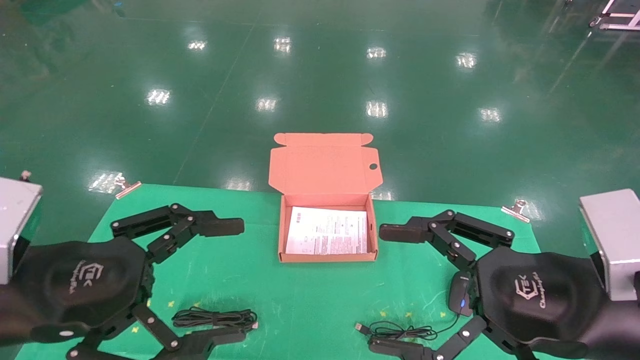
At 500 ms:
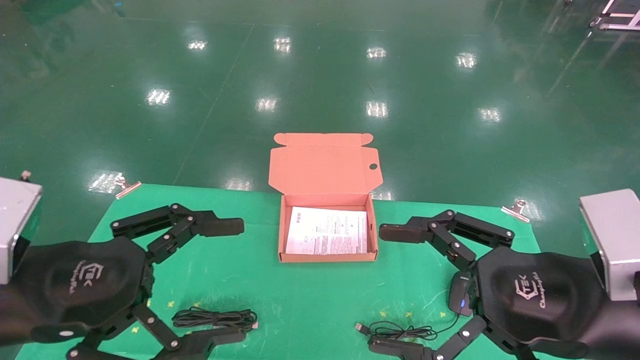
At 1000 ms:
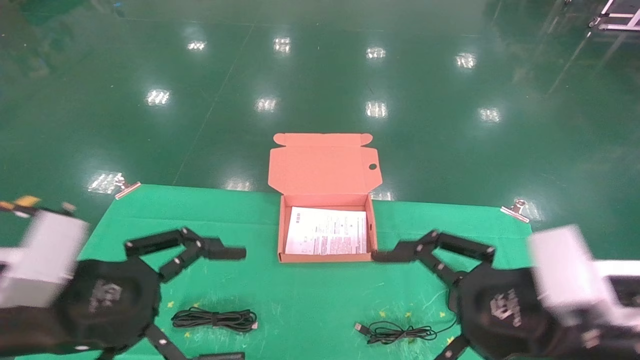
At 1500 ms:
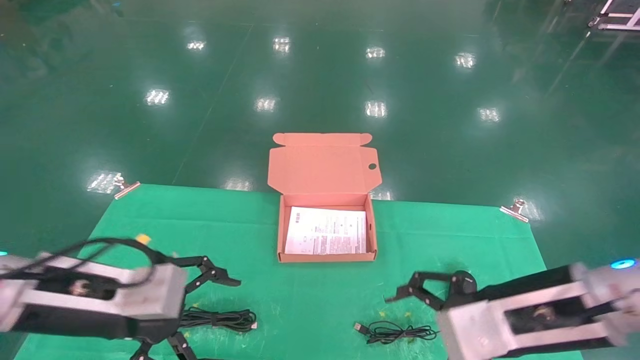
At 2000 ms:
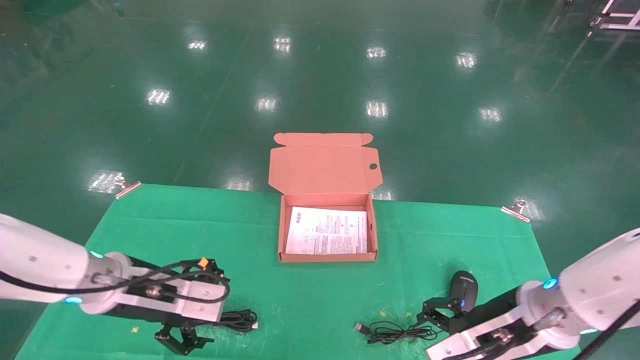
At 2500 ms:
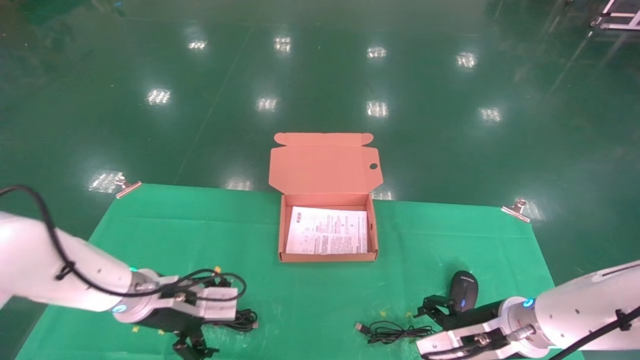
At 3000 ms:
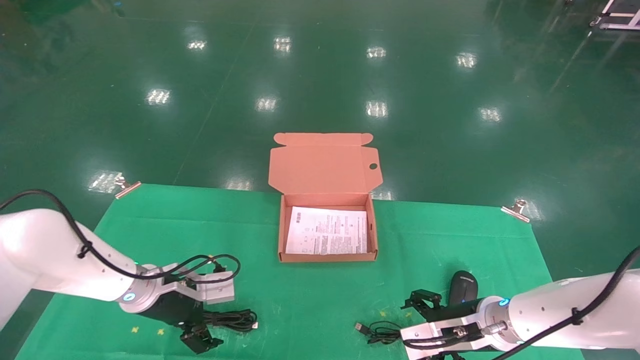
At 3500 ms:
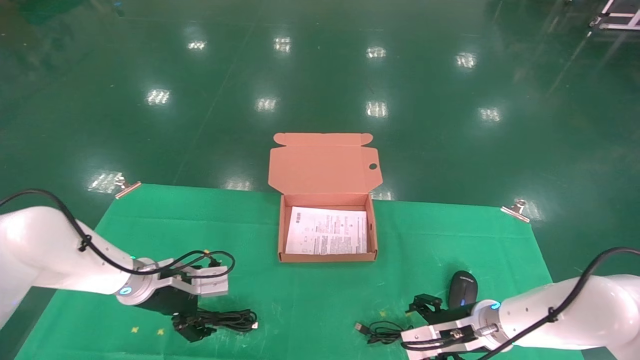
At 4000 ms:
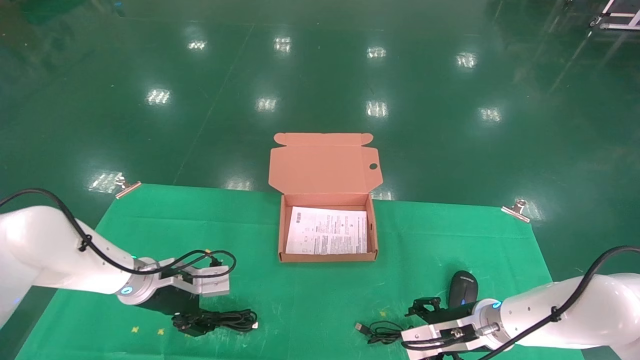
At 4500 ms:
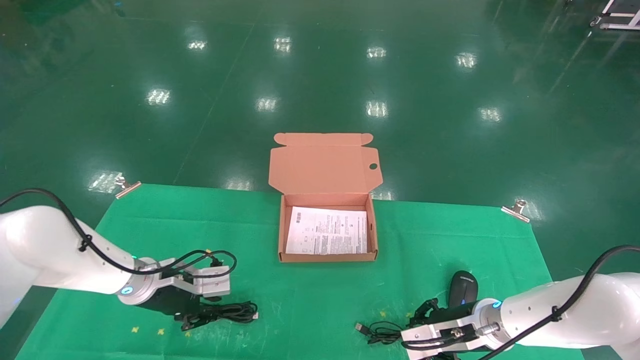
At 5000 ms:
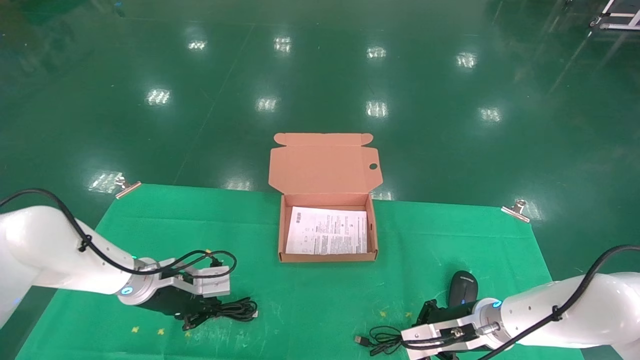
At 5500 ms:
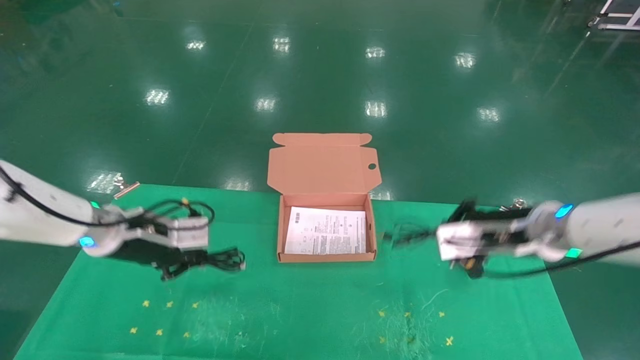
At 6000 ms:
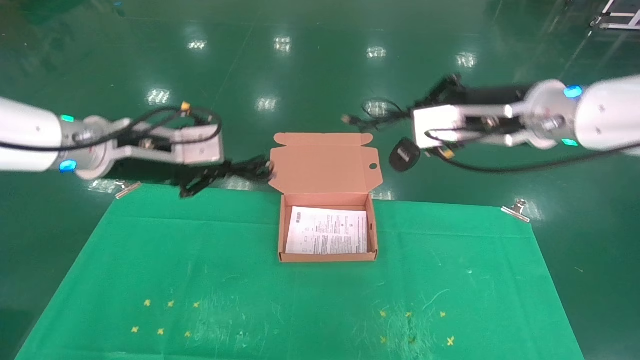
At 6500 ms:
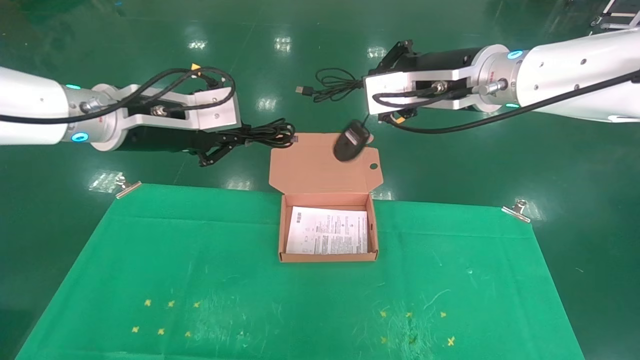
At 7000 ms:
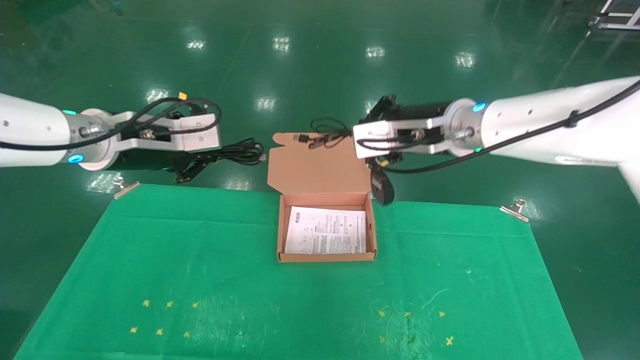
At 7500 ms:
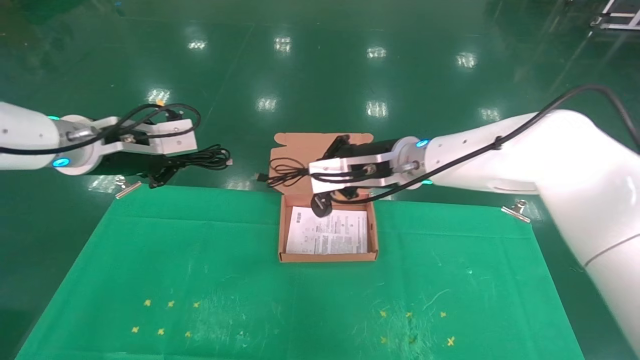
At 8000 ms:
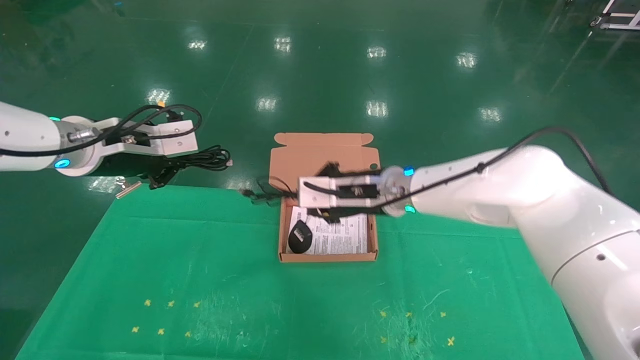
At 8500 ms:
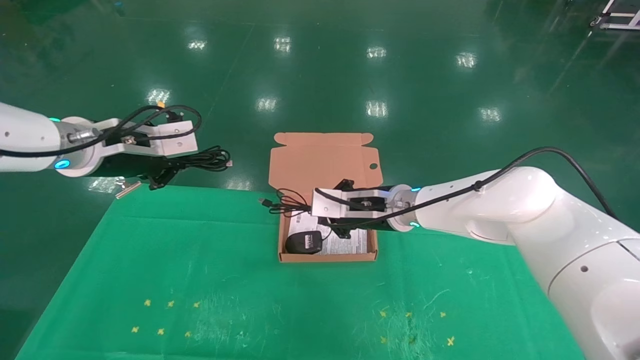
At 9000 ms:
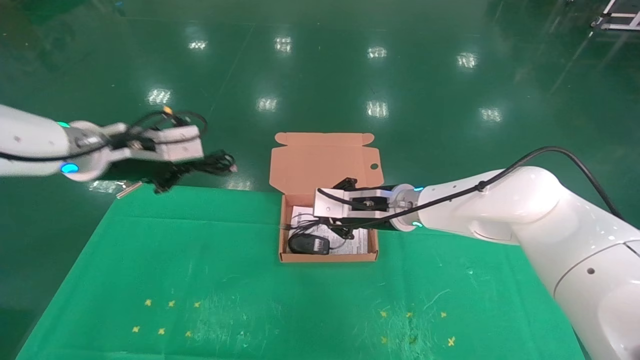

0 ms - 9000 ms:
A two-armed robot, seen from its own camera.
Task of the whole recording: grasp data cable left put into box grasp mouse right put into box.
Step, 1000 ms - 6000 ms: Grab and pick up both the mouse and power cord from the accessory packaging area at the same time.
0 ms - 2000 ms: The two grippers go approximately 15 cm forward and downward.
2000 ms - 4500 ms: The left gripper is displaced forward and downward by about 10 cm, and closes up, while the right gripper heads downward and forward, covering approximately 15 cm, and closes.
4500 ms - 7000 ms: Both grippers move upward, about 25 cm. The right gripper closes.
7000 ms - 9000 ms: The right gripper is displaced downward by roughly 10 cm.

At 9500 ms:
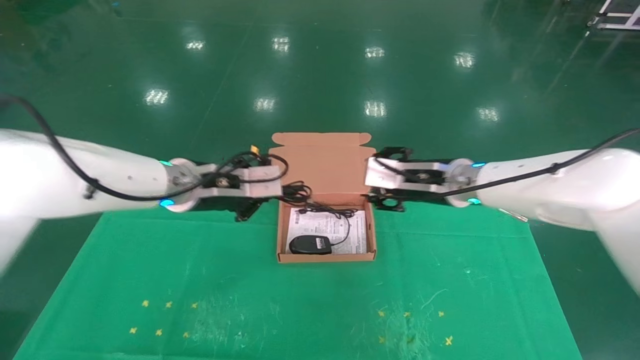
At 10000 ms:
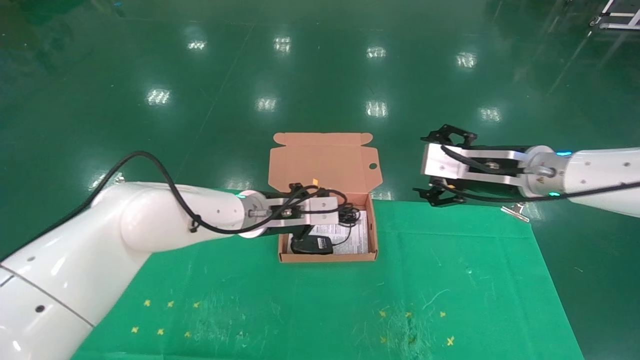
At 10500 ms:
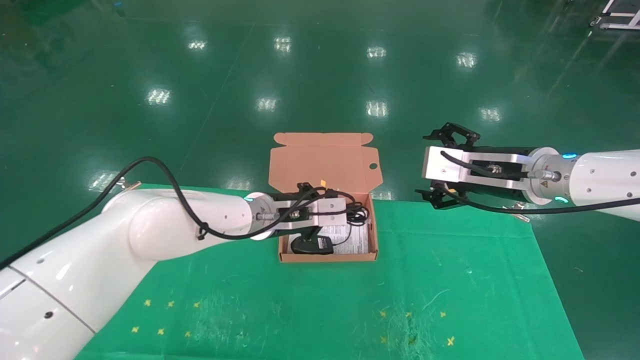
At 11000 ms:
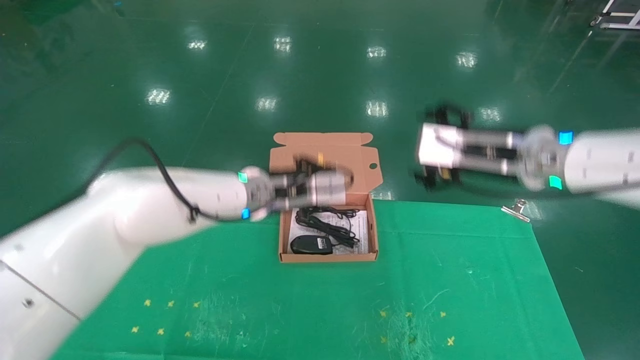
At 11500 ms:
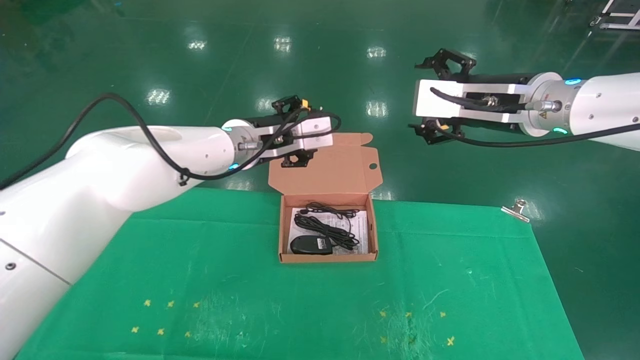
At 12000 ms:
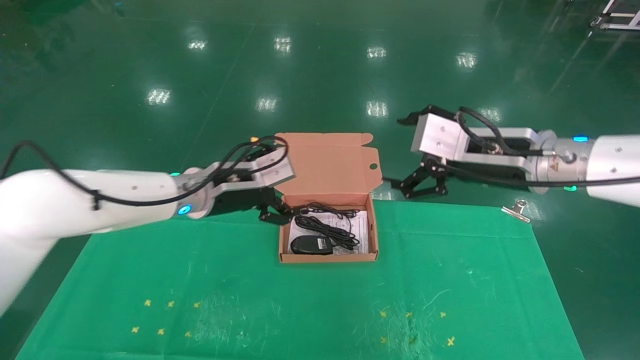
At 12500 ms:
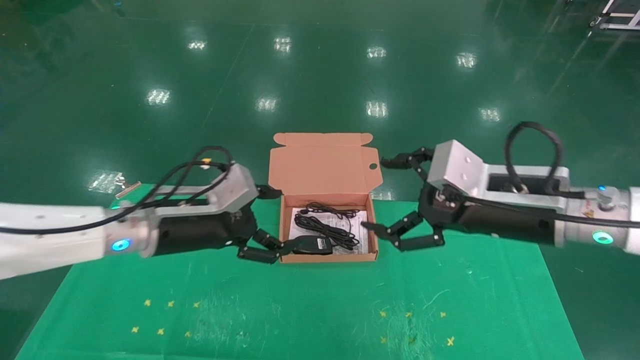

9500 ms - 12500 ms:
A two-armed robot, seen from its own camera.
Task of the whole recording: grasp data cable left put into box grasp mouse right put into box.
Step, 9500 ms - 11500 ms: Place the mouse and power cord into the box.
9500 ms - 11000 ms: The left gripper shifts about 10 cm to the right. The right gripper shifts approximately 10 cm upward, backward and to the right, and opens its fingers.
11000 ms - 12500 ms: The right gripper travels backward and downward by roughly 10 cm, while the left gripper moves to the left and backward, some 15 cm, and opens its fingers.

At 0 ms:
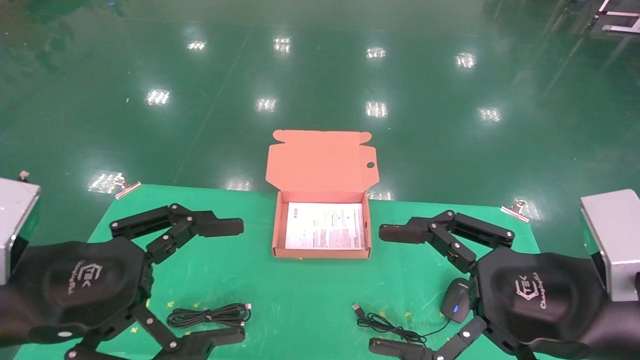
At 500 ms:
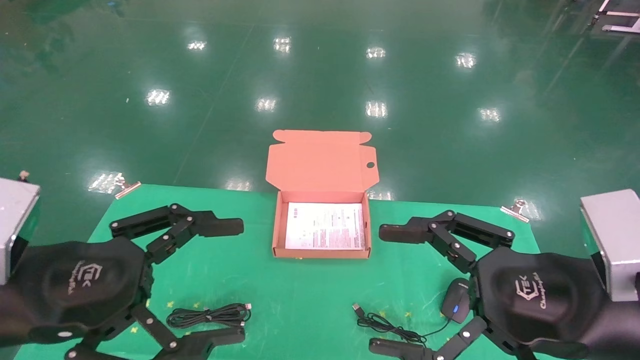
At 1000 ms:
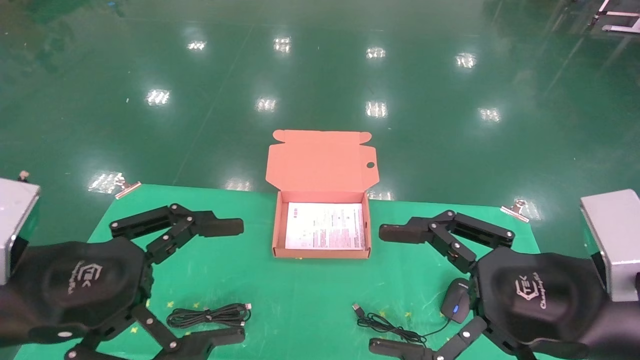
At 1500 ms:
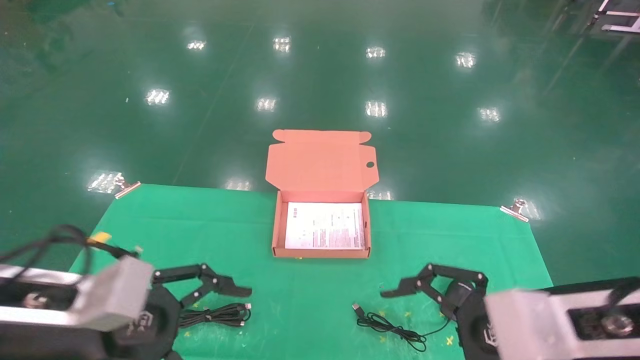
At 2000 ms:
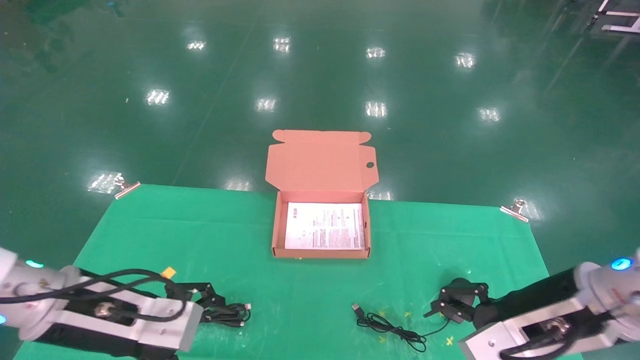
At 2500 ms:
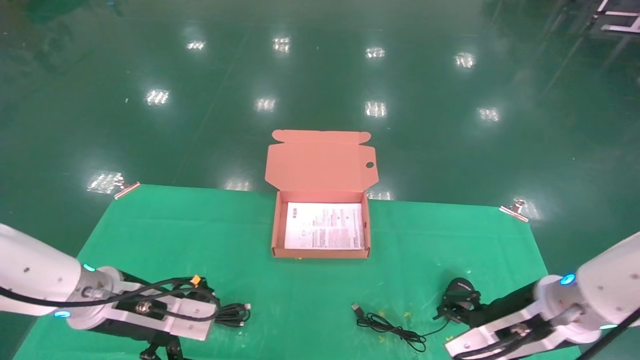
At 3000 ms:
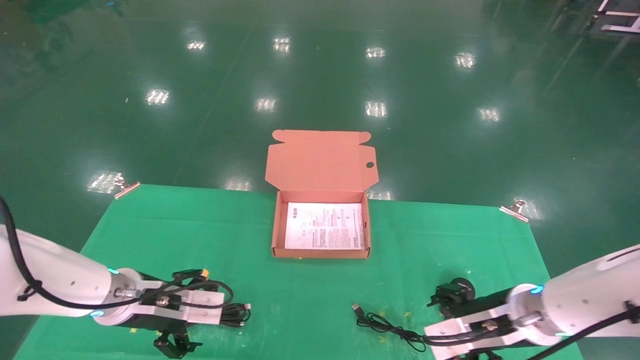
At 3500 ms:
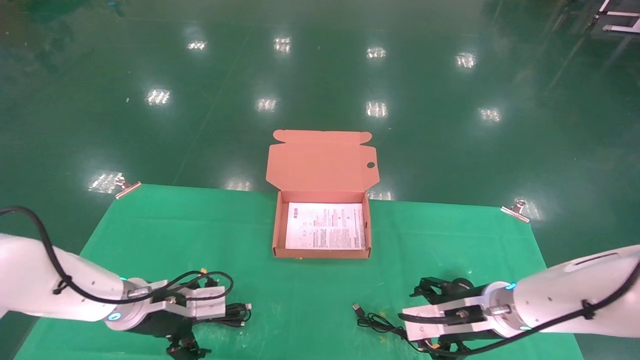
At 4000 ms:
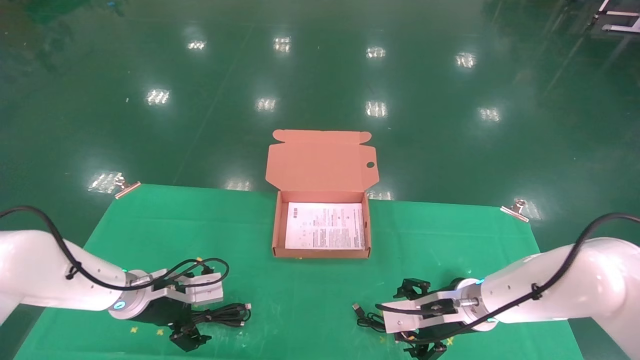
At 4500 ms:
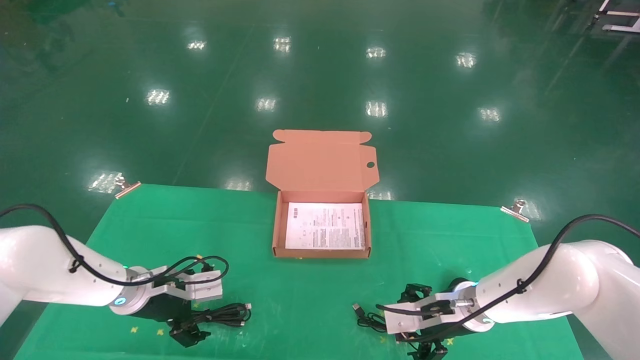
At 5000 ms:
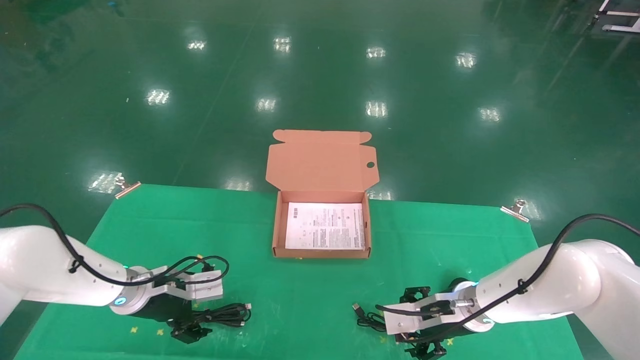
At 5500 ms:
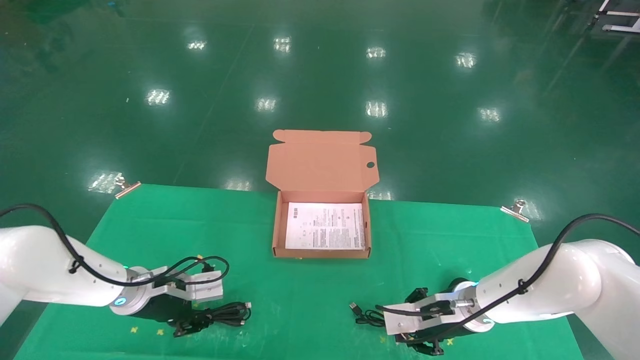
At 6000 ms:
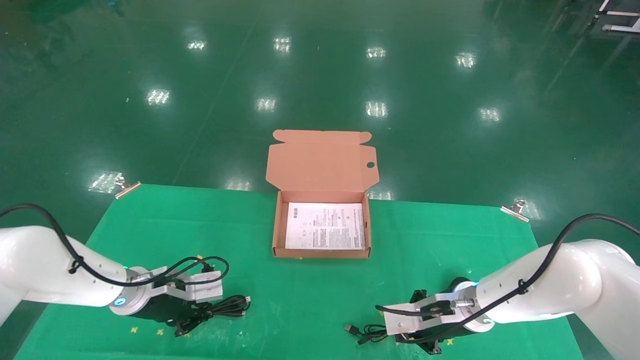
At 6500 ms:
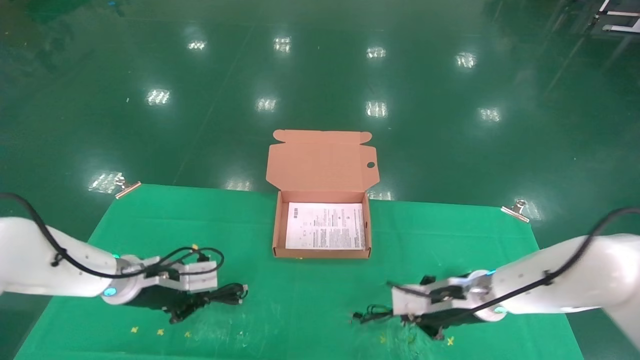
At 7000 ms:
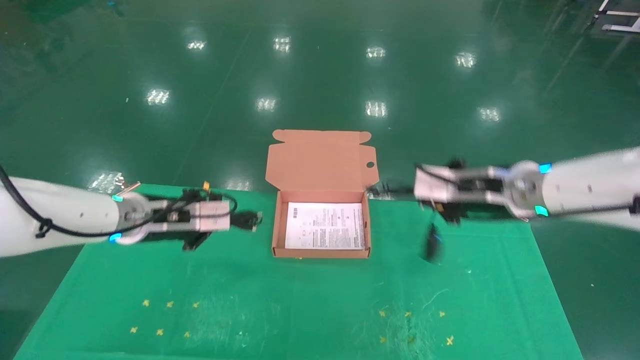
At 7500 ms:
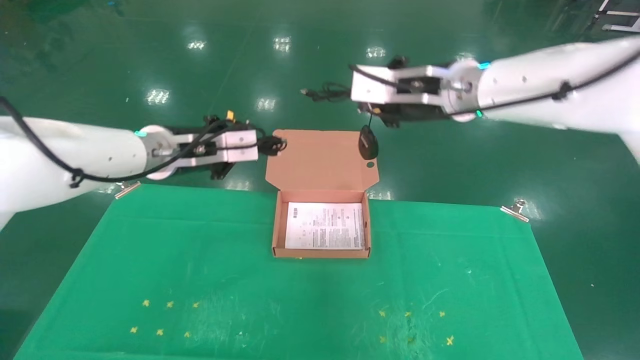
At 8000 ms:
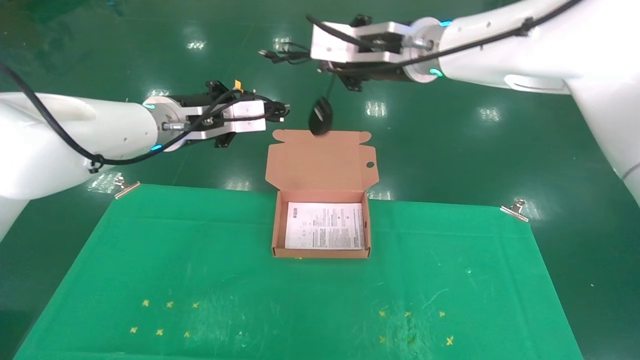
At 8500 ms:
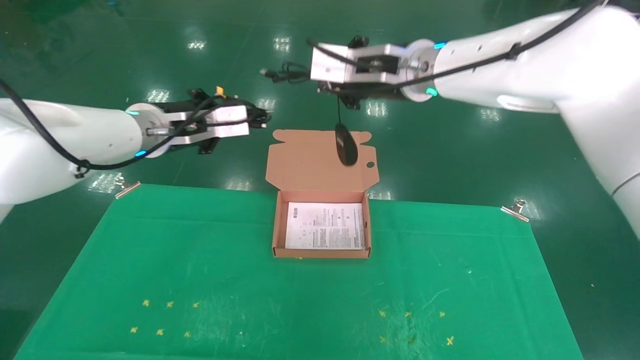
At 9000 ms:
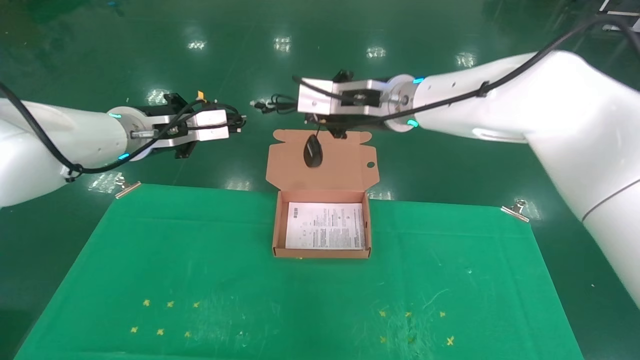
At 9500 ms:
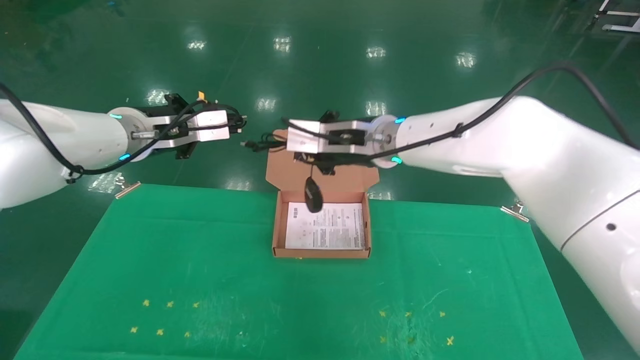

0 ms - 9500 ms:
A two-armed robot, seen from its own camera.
Task of the whole recording: grasp data cable left put into box grasp mouse right put into box.
Step, 1500 ms - 6000 ms: Grab and pick up both the mouse and power cord from the accessory packaging area at the same time.
0 ms - 2000 ms: The right gripper goes about 10 cm forward. The left gripper moves forward and downward, about 10 cm.
2000 ms - 4000 ms: The two grippers go about 15 cm forward and downward.
4000 ms - 5500 ms: The right gripper closes its fingers. Meanwhile the left gripper closes up.
5500 ms - 7500 ms: The two grippers go about 25 cm upward. The left gripper closes; the right gripper closes.
7500 ms - 9500 ms: The right gripper moves to the left and downward, roughly 10 cm.
